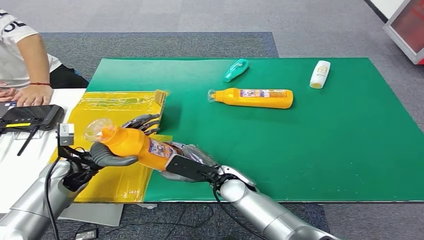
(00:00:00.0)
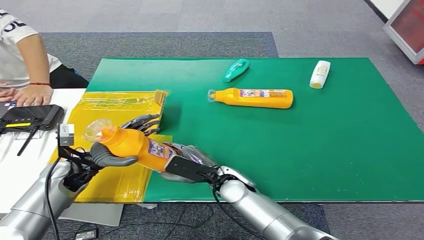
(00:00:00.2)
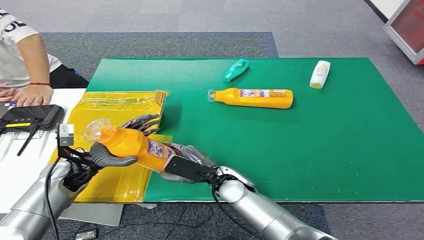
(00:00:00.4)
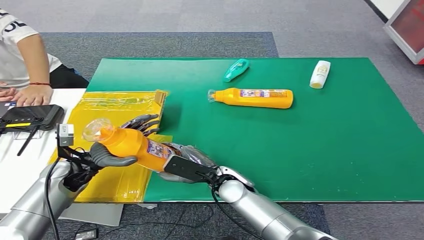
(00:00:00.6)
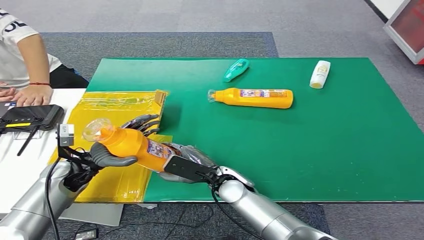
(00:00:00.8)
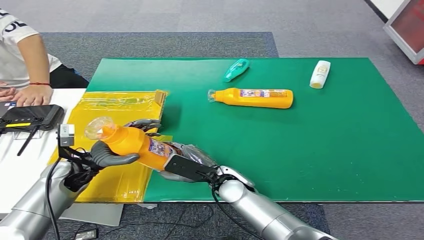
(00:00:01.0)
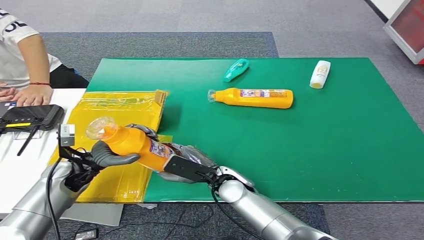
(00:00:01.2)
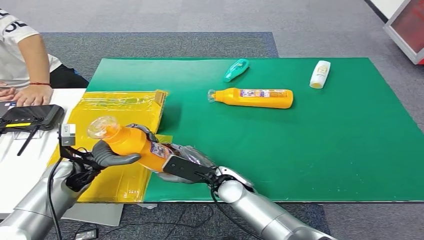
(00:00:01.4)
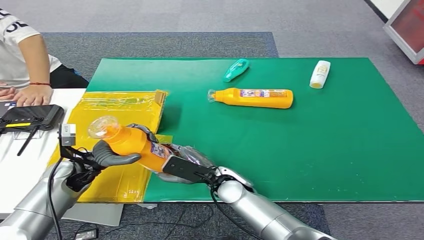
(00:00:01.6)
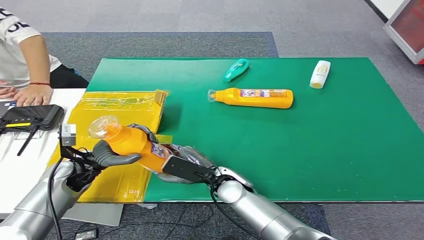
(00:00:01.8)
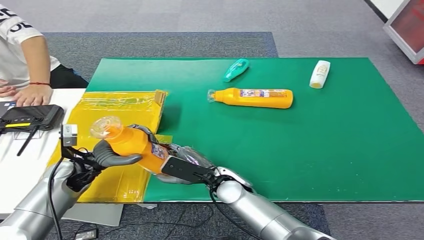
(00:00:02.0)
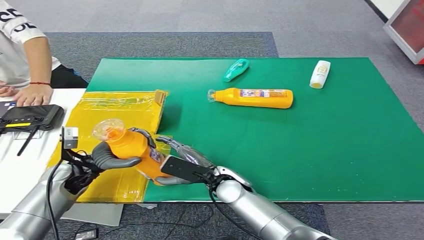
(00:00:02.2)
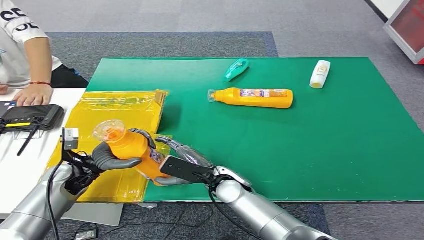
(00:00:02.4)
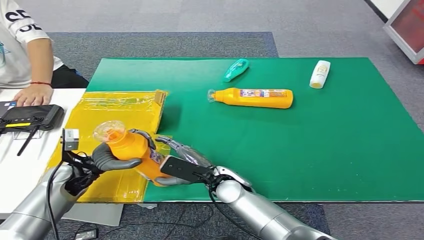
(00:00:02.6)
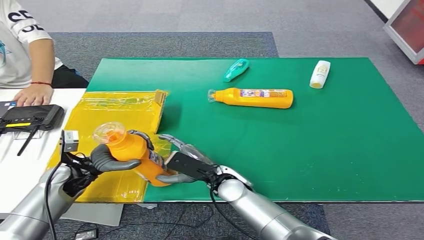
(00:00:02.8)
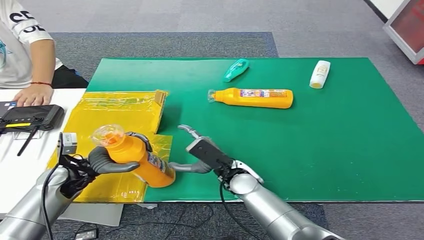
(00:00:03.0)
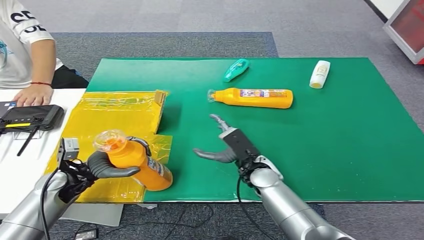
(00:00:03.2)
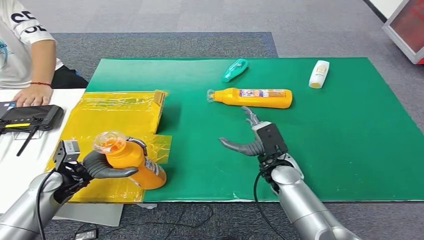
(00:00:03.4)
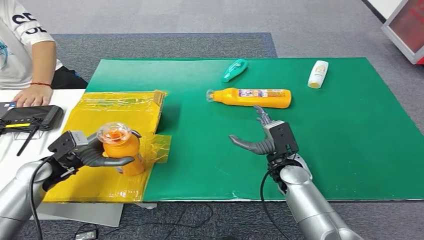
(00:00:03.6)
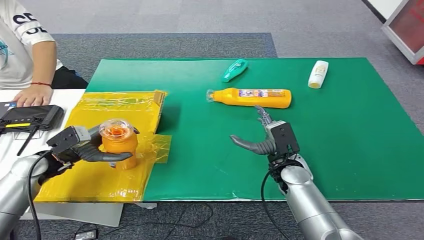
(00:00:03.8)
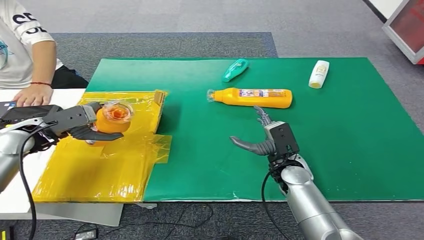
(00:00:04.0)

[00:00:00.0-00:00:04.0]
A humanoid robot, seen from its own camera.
Step, 00:00:00.0 to 00:00:04.0: Turn the bottle to the front side.
00:00:00.0 to 00:00:01.4: The two hands keep their place.
00:00:01.4 to 00:00:02.6: Both hands stay put.
